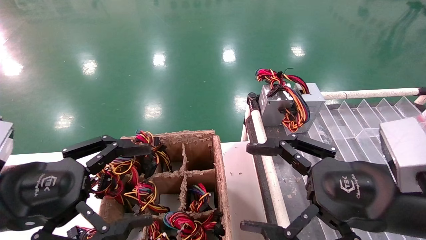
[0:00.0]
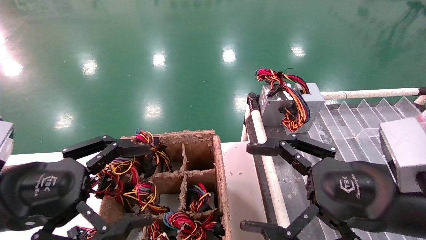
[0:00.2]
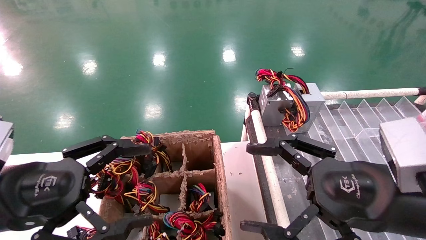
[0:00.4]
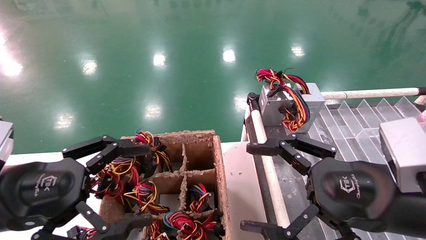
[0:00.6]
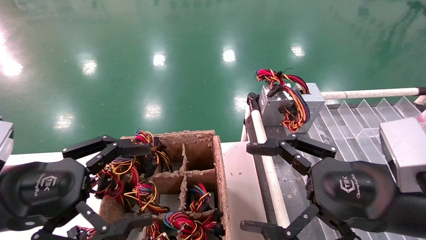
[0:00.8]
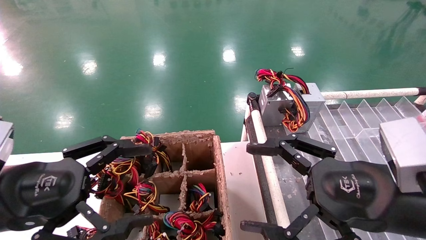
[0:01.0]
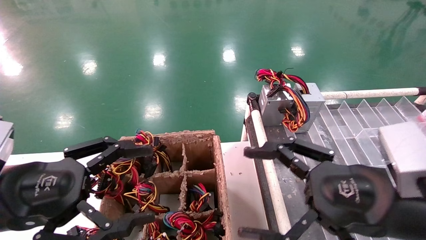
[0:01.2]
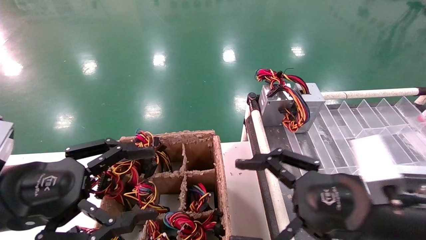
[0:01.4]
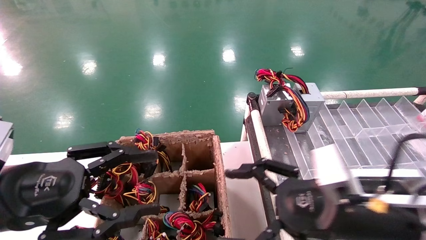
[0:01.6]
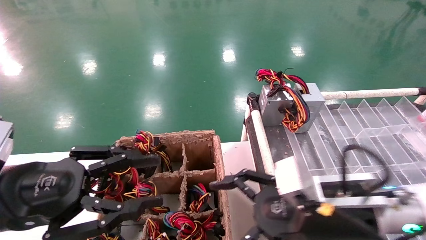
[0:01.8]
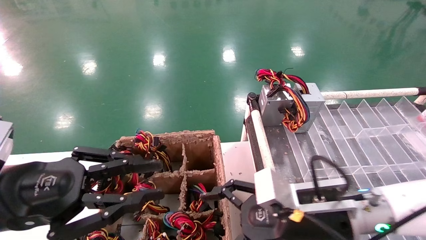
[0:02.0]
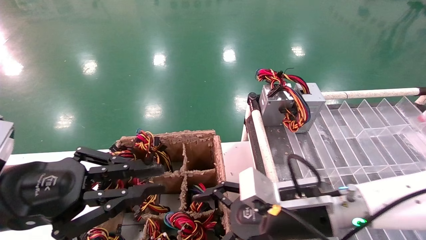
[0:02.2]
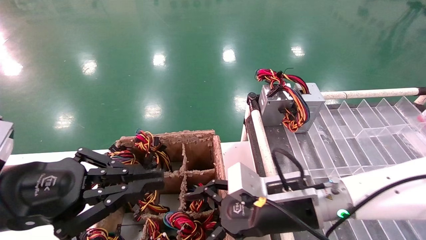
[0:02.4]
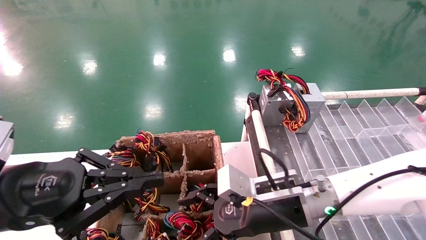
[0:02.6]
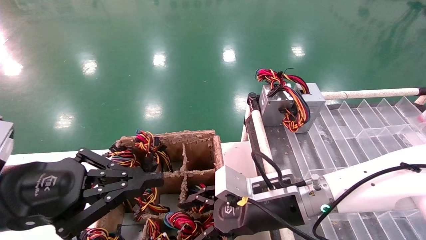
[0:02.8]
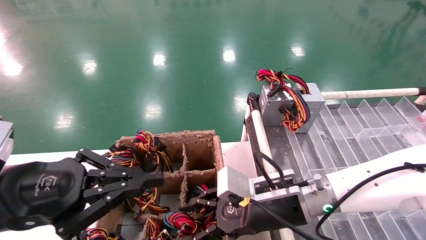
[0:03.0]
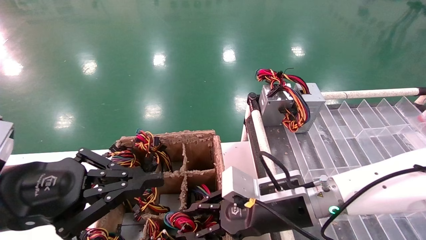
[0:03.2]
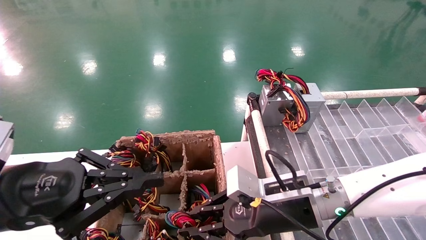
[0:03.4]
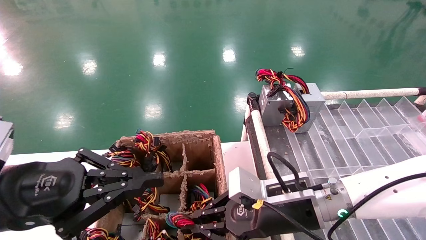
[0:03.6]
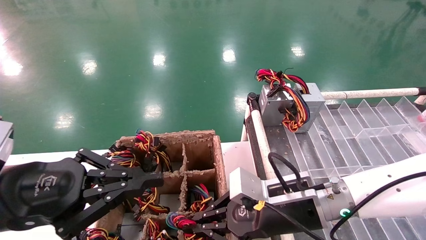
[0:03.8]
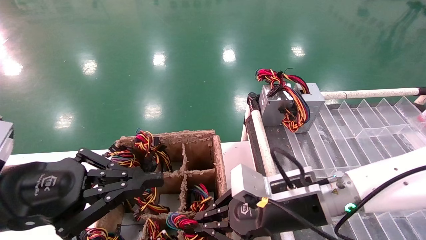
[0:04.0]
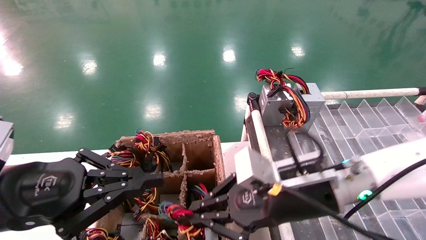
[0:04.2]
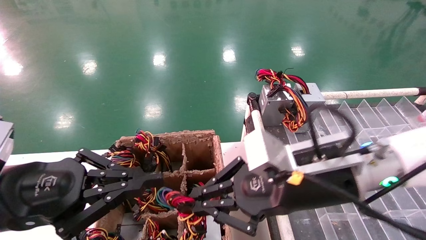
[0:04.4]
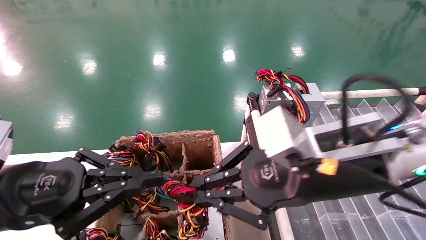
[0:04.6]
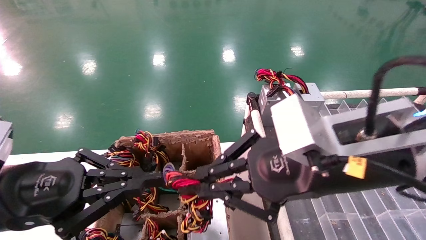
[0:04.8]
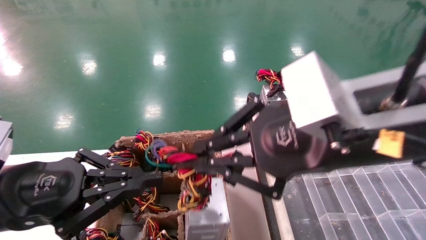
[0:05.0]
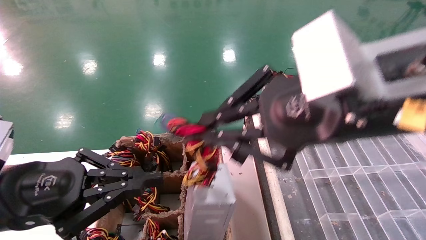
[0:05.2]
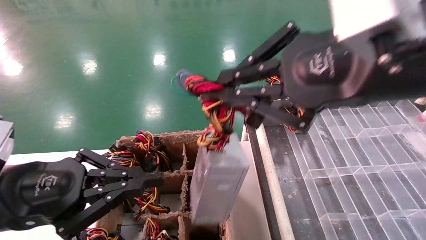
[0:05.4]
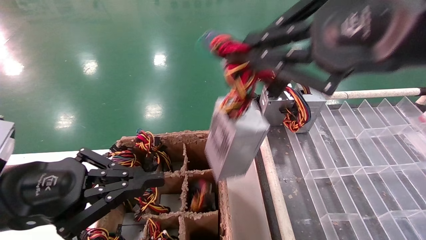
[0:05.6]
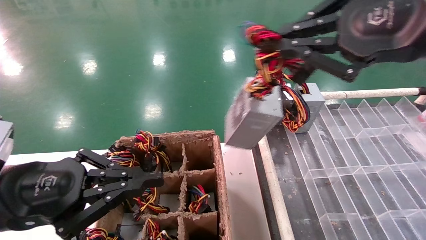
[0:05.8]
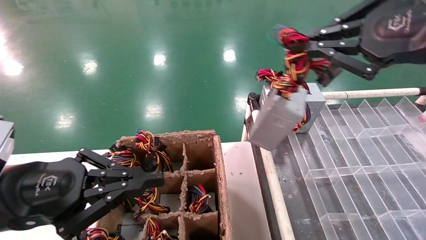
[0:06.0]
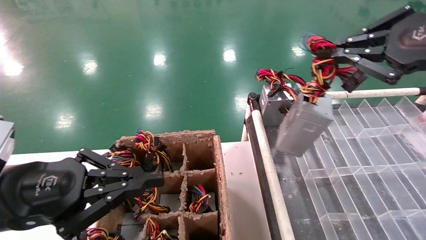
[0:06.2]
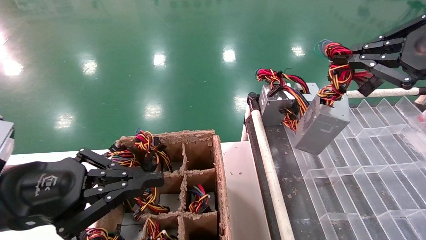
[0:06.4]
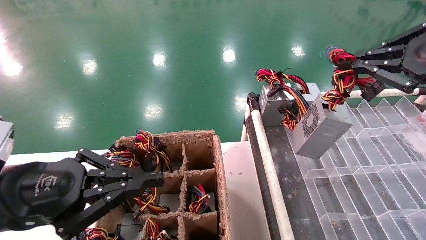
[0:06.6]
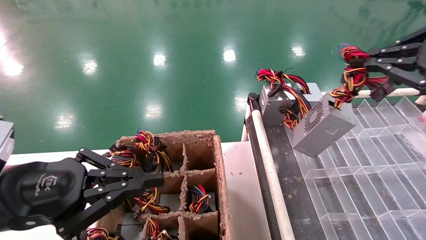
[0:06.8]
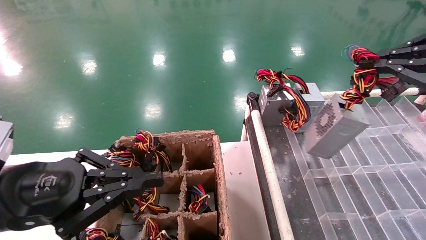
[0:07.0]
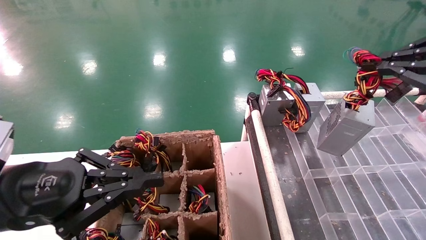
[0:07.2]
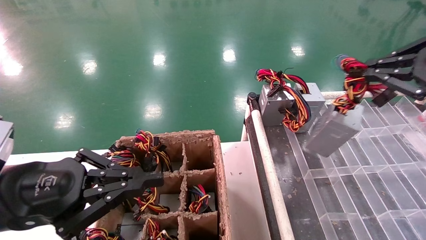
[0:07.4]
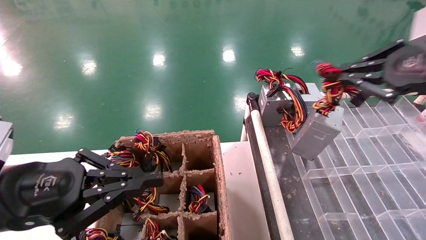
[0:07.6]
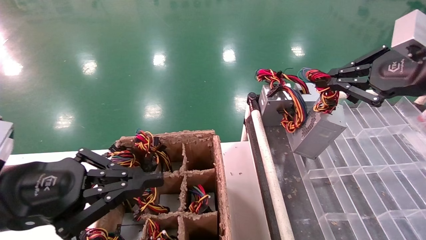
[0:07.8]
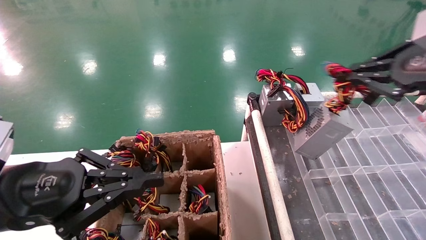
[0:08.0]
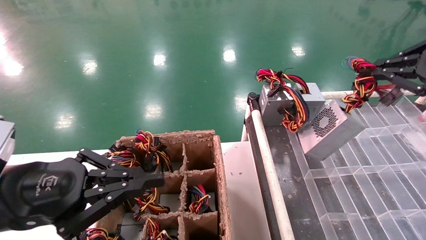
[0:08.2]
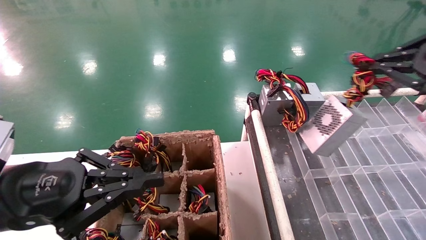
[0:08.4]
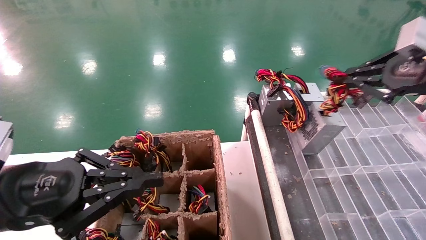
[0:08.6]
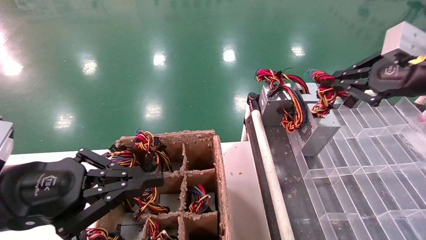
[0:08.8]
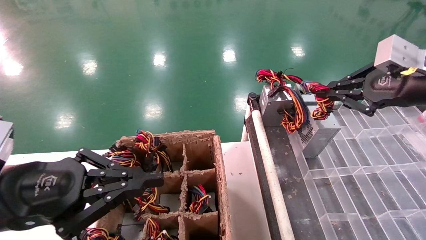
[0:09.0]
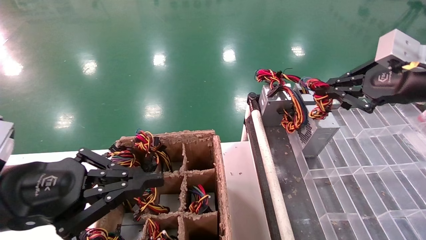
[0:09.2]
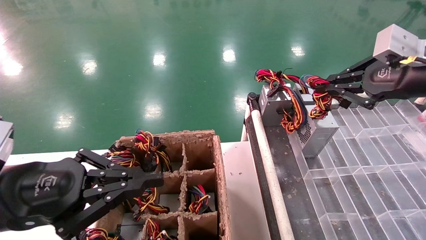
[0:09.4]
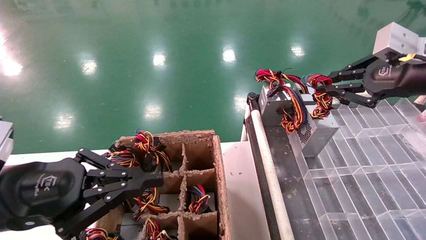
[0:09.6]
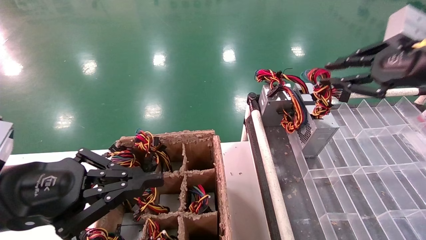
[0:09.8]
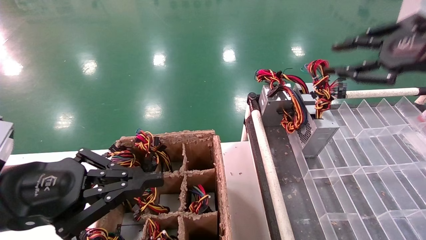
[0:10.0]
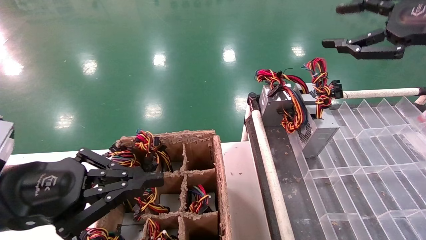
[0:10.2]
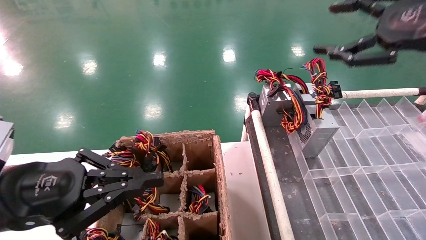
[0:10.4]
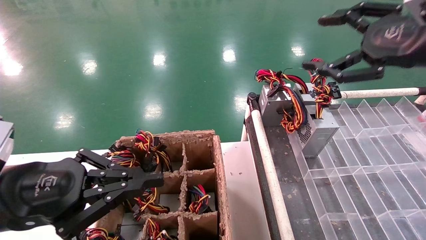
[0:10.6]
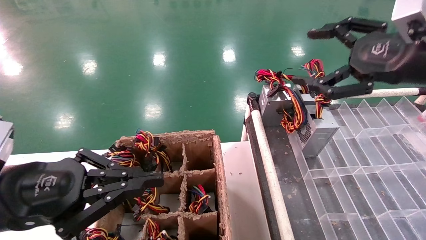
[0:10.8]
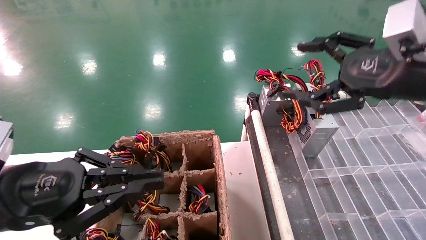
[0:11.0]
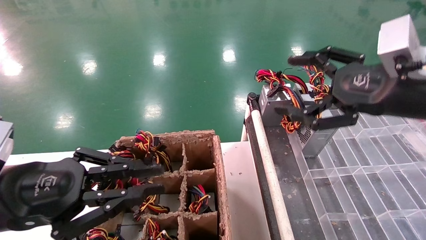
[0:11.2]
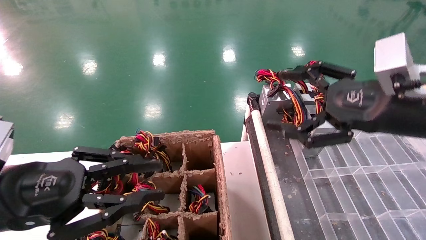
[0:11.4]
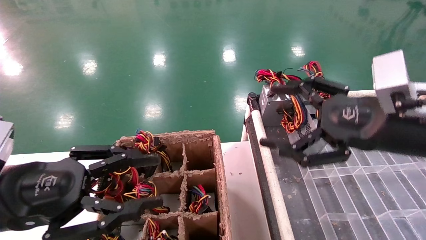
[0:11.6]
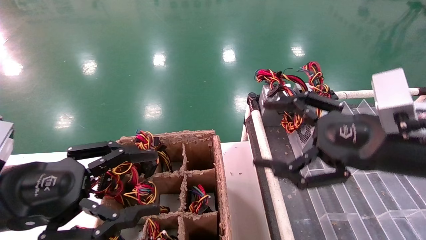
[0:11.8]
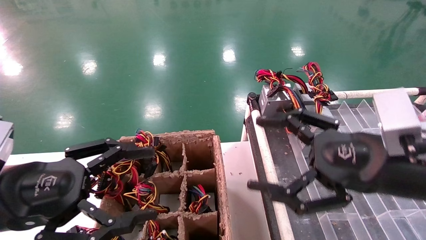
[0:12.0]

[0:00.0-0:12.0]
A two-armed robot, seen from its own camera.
Step, 0:01.6 to 0:04.0: Grab the main unit power supply from the containment box.
Step, 0:04.2 to 0:09.8: Place the main unit power supply in the designated area.
0:00.0 to 0:01.6: The right gripper changes place by roughly 5 cm.
0:01.6 to 0:03.0: The right gripper is displaced to the left, forward and downward by about 15 cm, and closes up. The left gripper closes.
0:03.0 to 0:04.4: The right gripper heads upward and backward, covering roughly 10 cm, and closes.
0:04.4 to 0:06.0: The right gripper travels upward and to the right by about 25 cm.
0:06.0 to 0:07.6: The right gripper goes roughly 10 cm to the right and forward.
0:07.6 to 0:09.0: There are only small adjustments of the grippers.
0:09.0 to 0:10.4: The right gripper is displaced upward by roughly 5 cm, and opens its fingers.
0:10.4 to 0:12.0: The right gripper shifts approximately 20 cm downward and to the left, and opens its fingers. The left gripper opens.

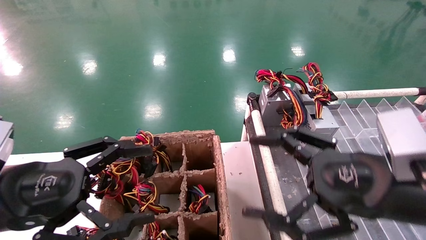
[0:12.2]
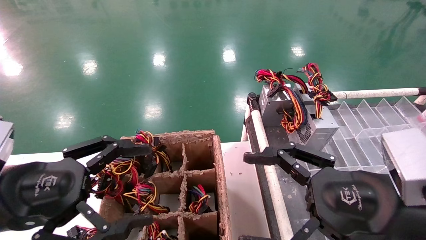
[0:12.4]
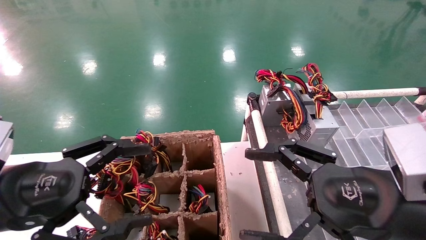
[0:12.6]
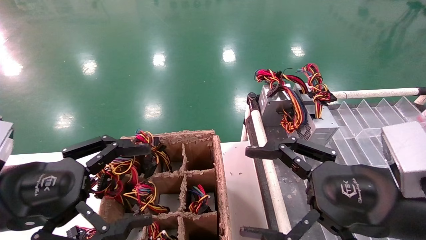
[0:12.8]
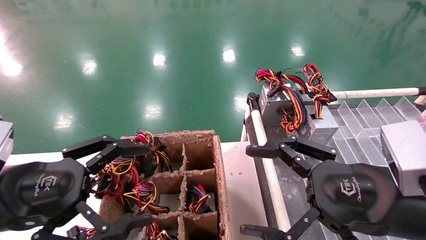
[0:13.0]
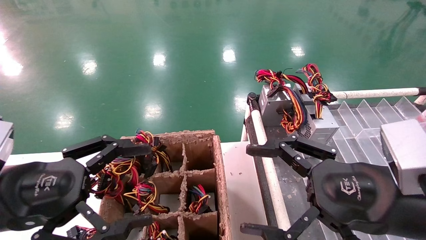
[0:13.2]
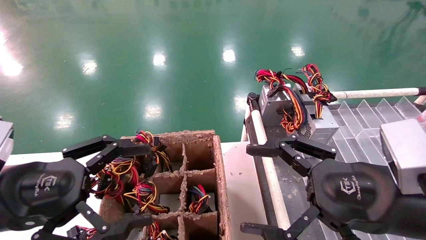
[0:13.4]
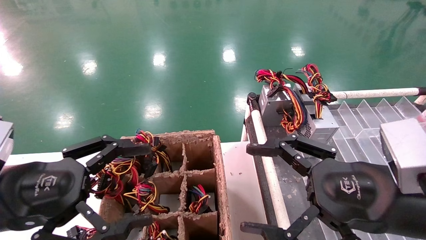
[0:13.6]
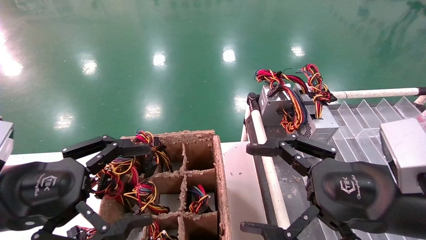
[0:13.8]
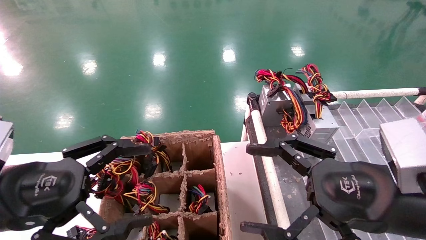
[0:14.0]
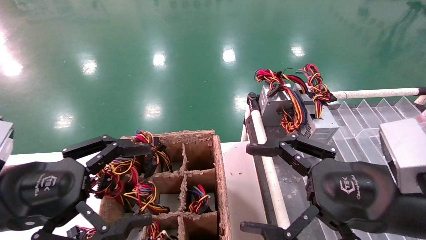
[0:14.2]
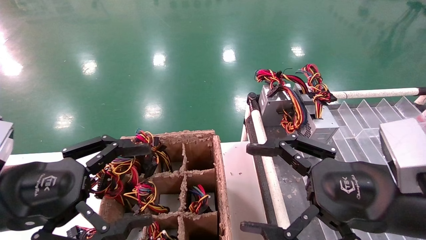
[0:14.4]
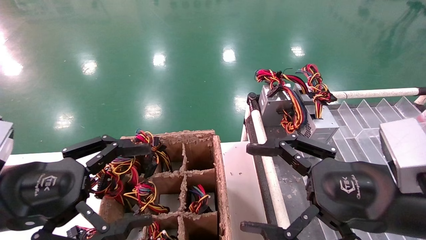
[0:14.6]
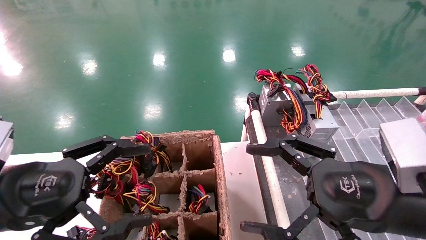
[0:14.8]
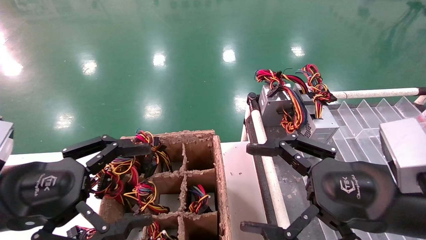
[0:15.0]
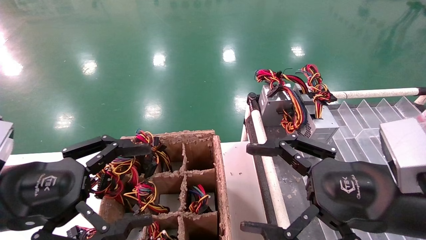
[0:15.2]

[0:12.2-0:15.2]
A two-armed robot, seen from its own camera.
0:12.2 to 0:15.2: Both grippers stay put.
